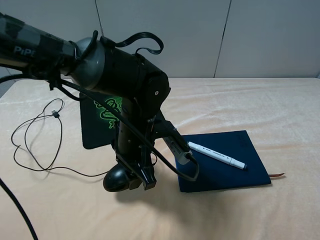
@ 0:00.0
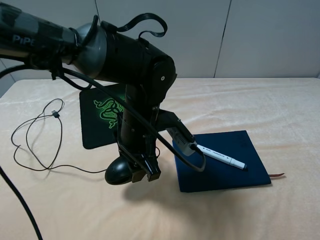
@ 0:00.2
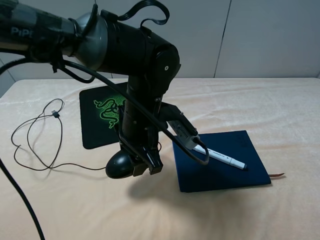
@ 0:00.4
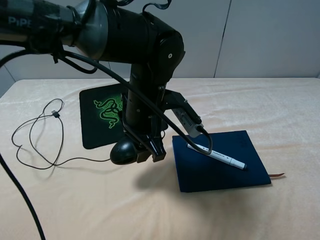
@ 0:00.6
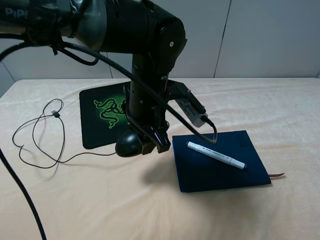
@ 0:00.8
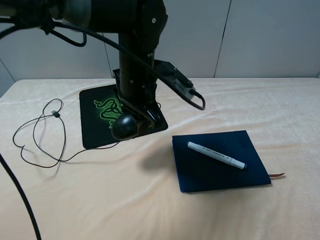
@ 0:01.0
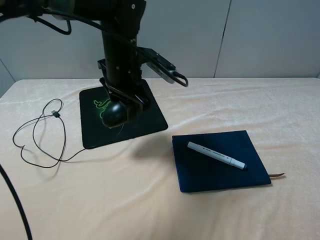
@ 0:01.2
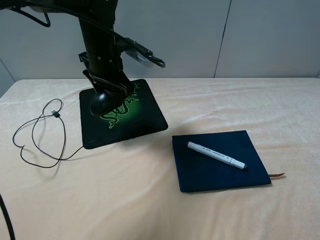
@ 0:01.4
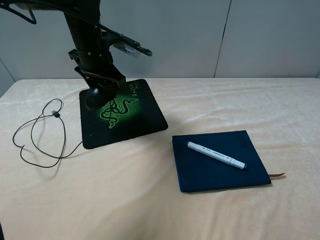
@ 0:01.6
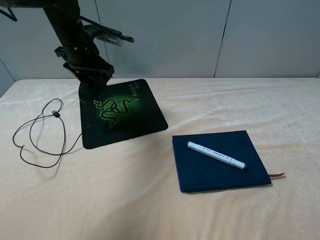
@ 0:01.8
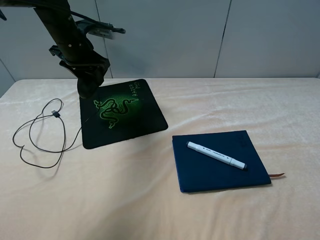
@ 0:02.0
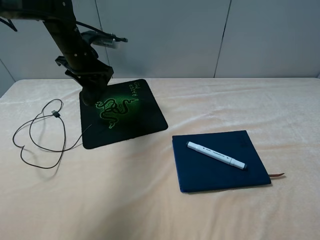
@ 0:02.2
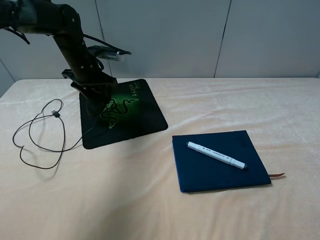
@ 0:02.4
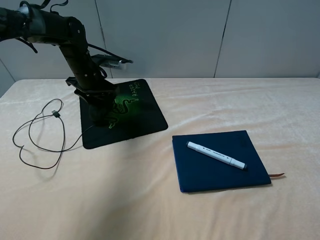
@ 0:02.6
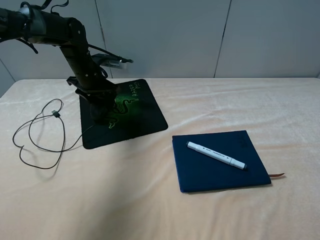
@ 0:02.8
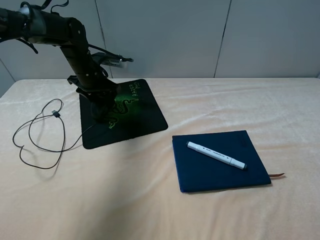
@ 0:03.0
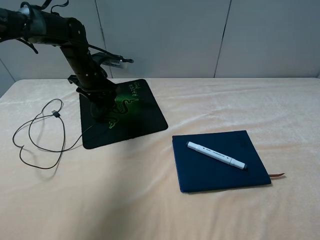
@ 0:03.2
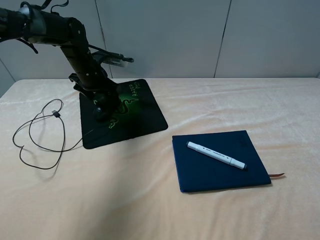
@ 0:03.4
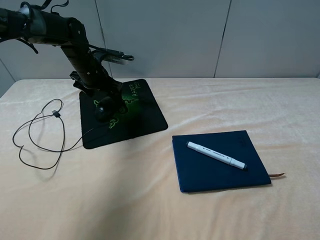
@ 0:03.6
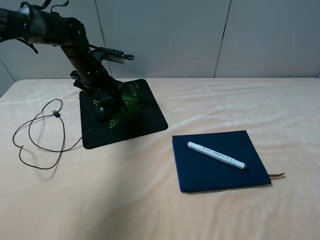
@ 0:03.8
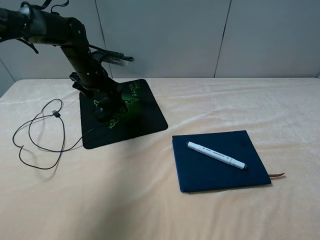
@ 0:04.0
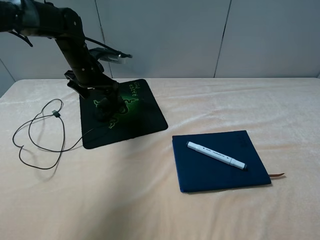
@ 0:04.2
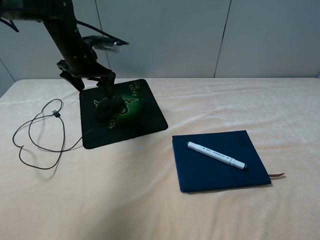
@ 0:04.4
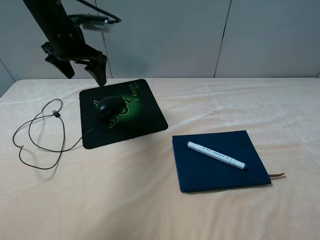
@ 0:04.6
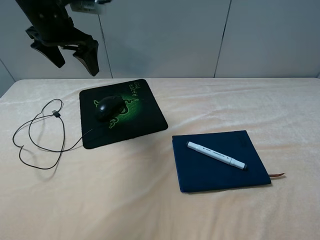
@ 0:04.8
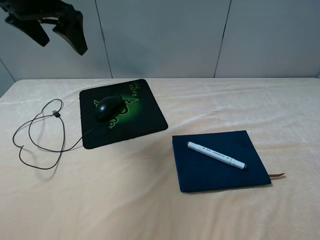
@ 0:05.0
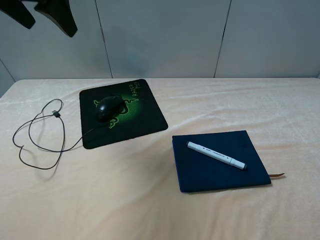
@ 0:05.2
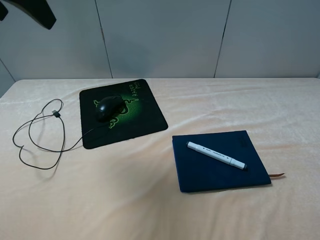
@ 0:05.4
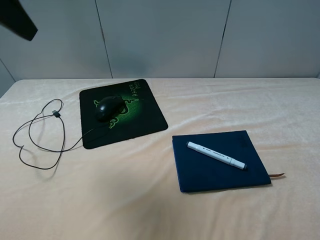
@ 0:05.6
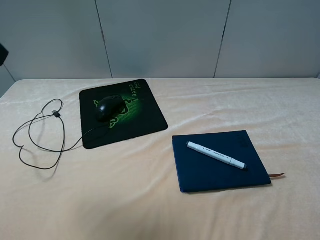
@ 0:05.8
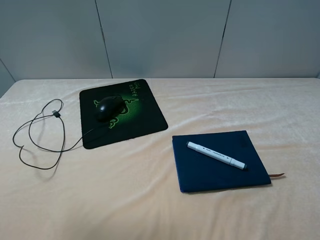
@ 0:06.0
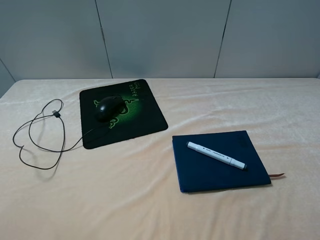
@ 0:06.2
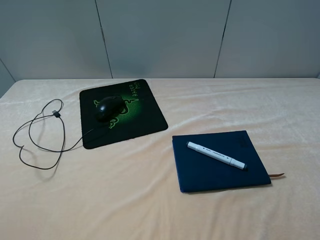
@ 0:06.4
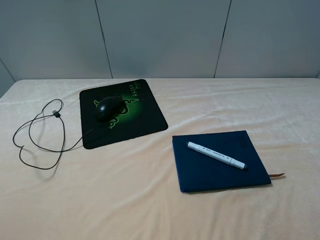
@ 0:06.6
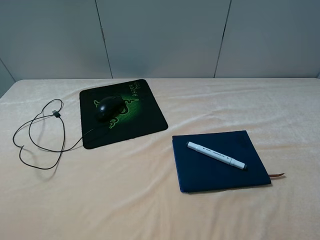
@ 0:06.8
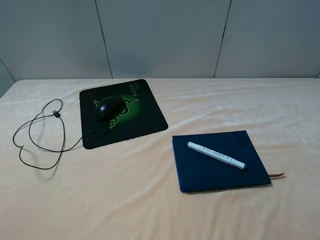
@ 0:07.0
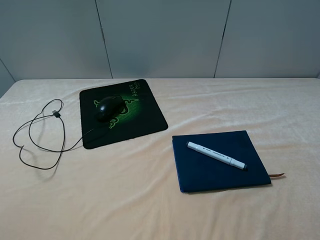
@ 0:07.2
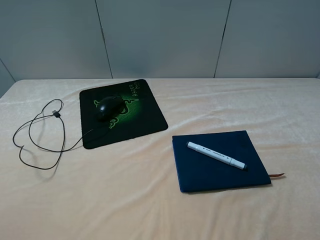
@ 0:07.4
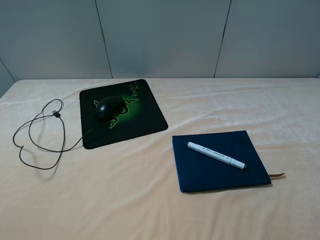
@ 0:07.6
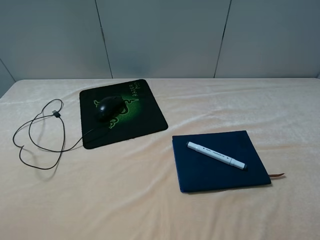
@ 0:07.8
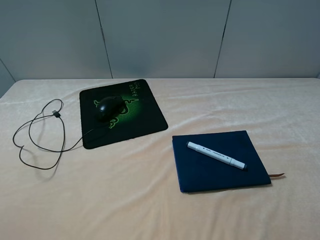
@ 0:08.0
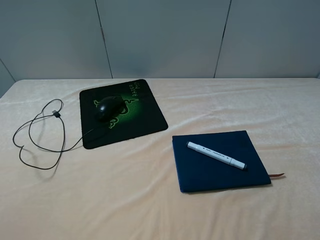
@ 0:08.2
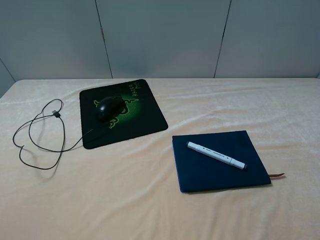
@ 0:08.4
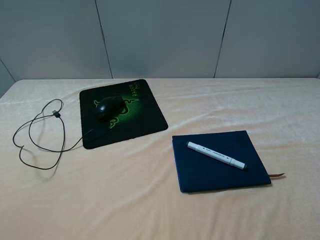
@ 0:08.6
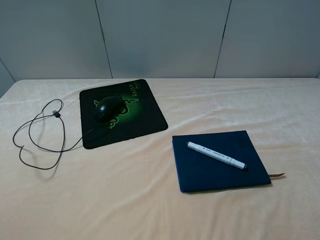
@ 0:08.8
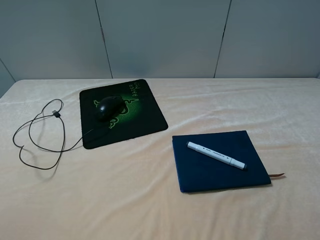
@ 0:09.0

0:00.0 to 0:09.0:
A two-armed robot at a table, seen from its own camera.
Step, 0:00.0 to 0:04.2: Place the mouse on the mouse pad with the left gripper.
0:00.0 to 0:01.6: The left gripper goes about 20 cm forward, to the left and upward.
0:01.6 to 0:03.0: The left gripper heads downward and forward, covering some 10 cm.
0:03.0 to 0:04.4: The left gripper moves upward, some 5 cm, and opens its fingers.
0:04.4 to 0:06.0: The left gripper shifts approximately 35 cm backward and upward.
0:07.6 to 0:09.0: Neither gripper changes place.
